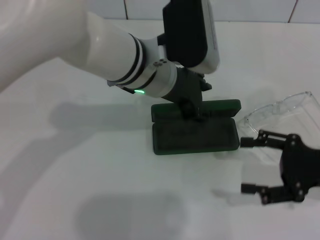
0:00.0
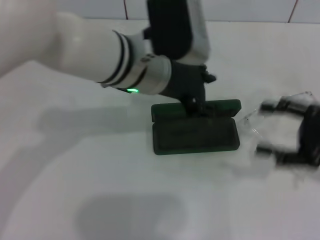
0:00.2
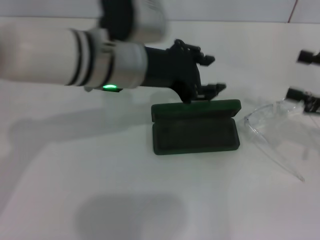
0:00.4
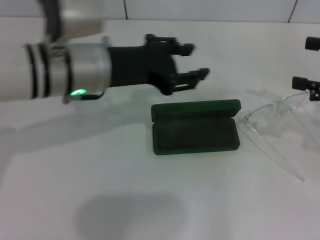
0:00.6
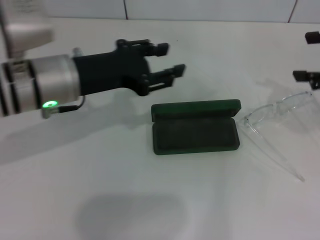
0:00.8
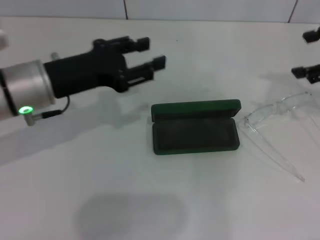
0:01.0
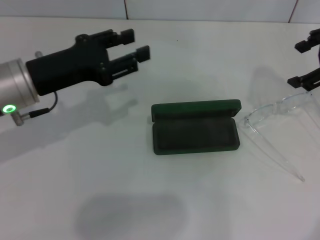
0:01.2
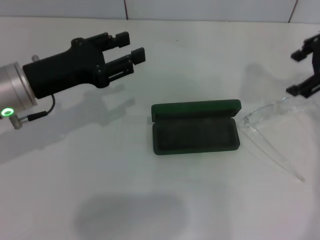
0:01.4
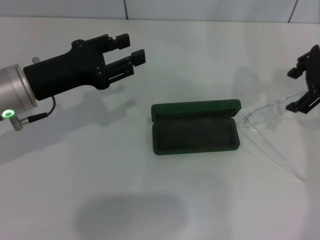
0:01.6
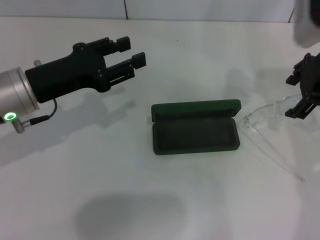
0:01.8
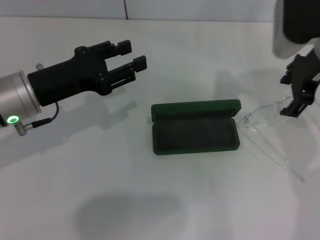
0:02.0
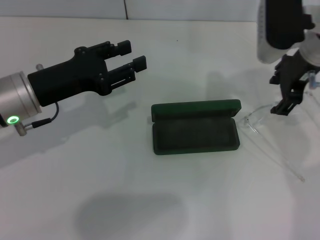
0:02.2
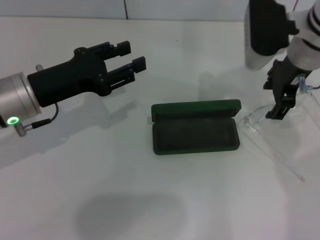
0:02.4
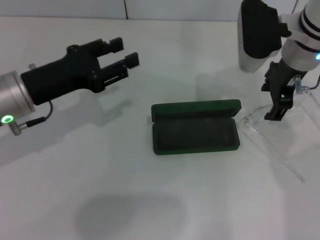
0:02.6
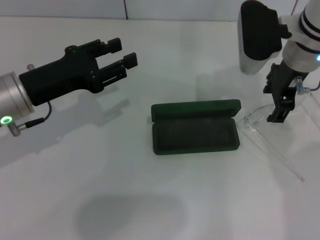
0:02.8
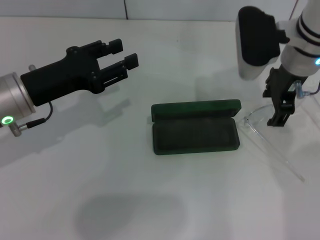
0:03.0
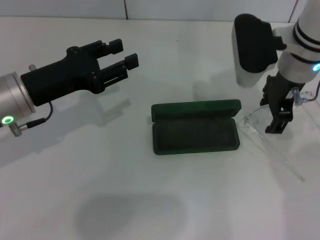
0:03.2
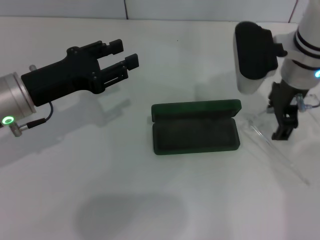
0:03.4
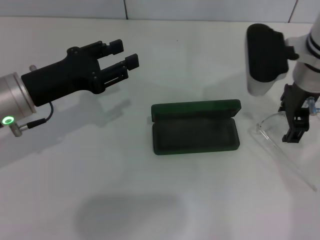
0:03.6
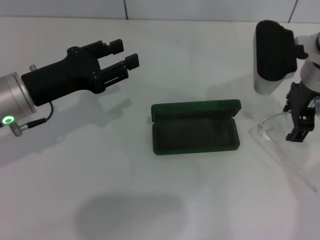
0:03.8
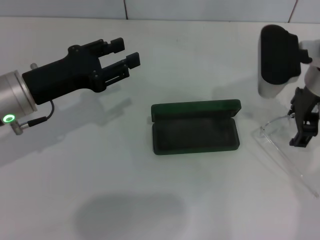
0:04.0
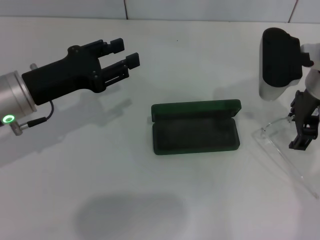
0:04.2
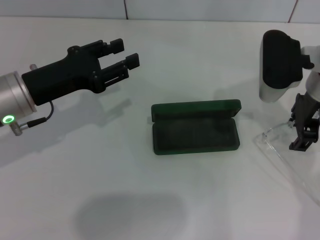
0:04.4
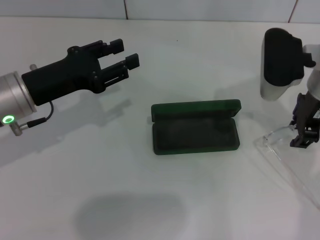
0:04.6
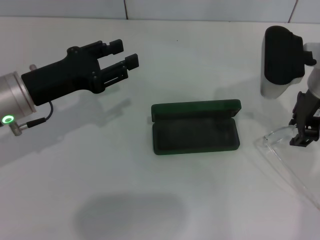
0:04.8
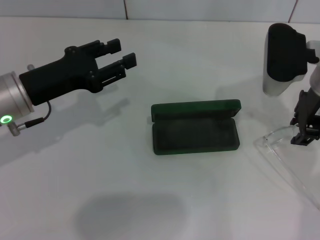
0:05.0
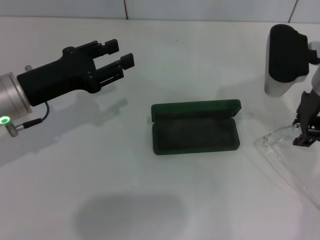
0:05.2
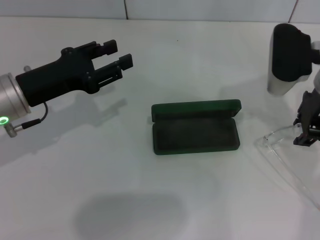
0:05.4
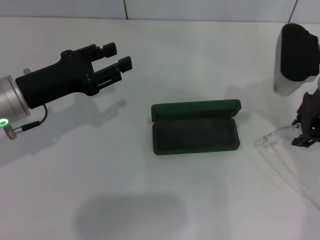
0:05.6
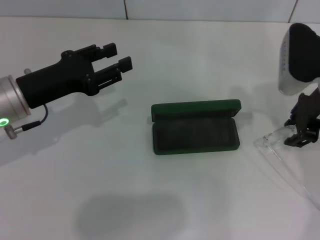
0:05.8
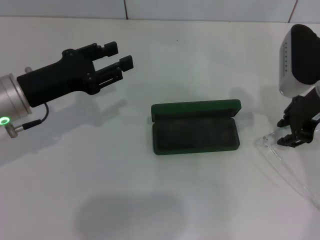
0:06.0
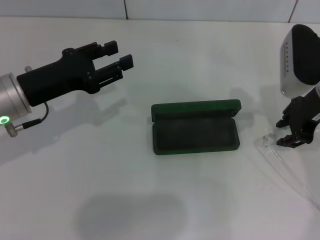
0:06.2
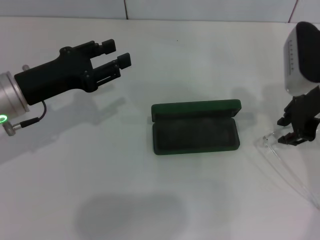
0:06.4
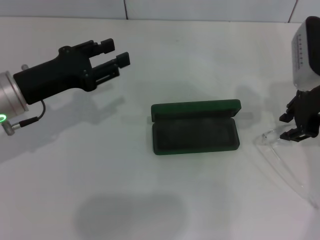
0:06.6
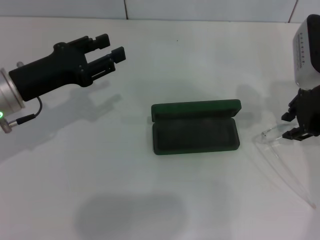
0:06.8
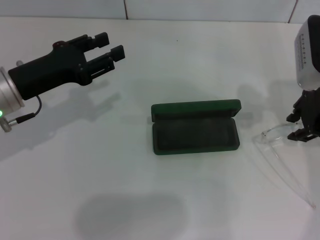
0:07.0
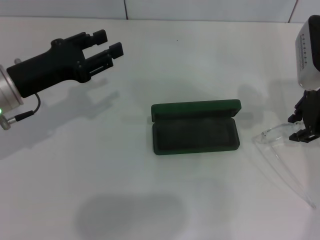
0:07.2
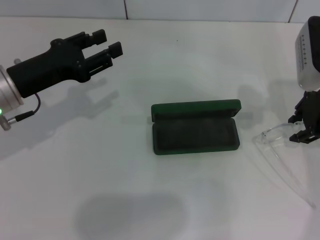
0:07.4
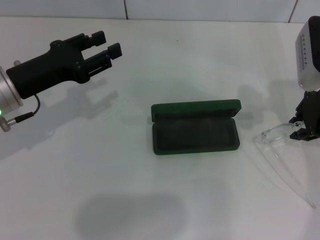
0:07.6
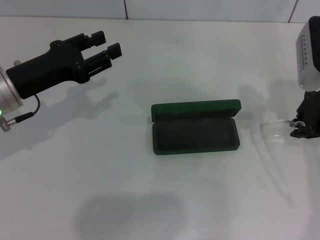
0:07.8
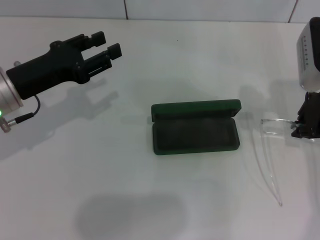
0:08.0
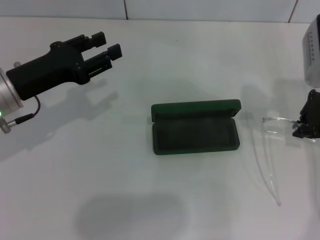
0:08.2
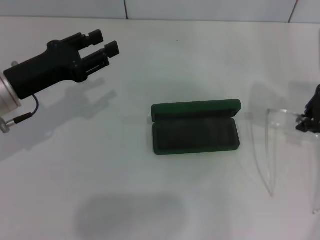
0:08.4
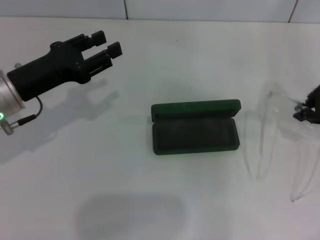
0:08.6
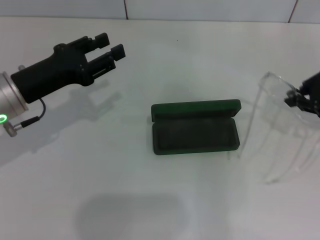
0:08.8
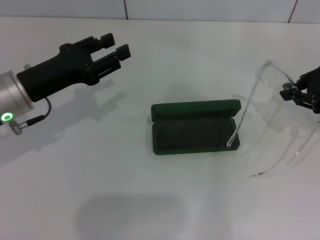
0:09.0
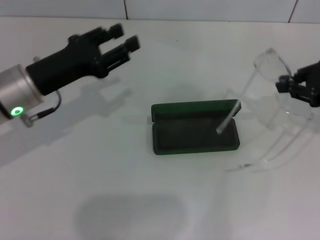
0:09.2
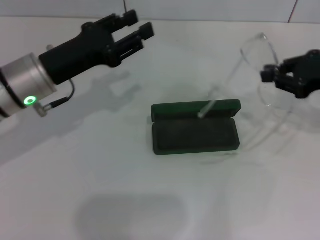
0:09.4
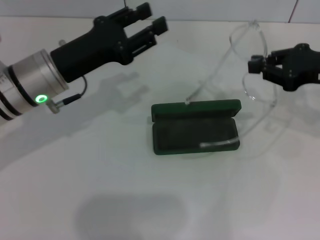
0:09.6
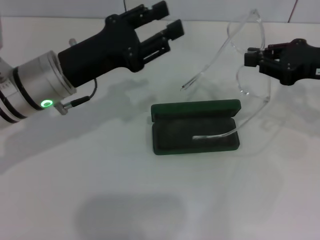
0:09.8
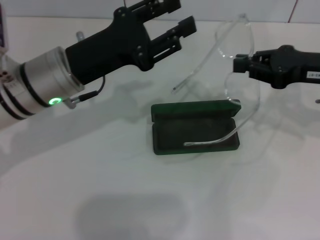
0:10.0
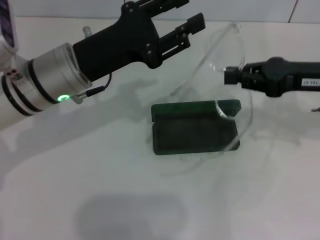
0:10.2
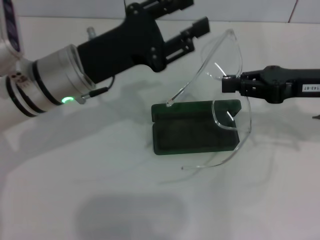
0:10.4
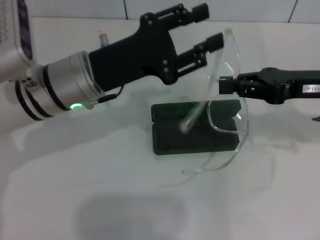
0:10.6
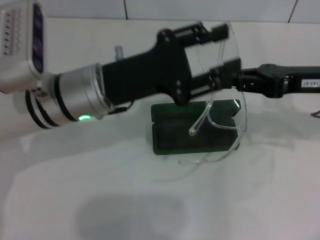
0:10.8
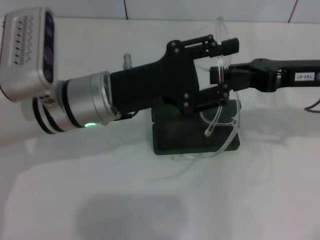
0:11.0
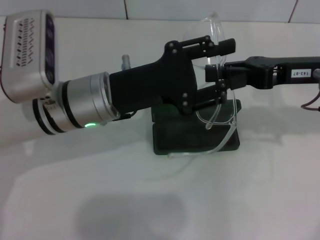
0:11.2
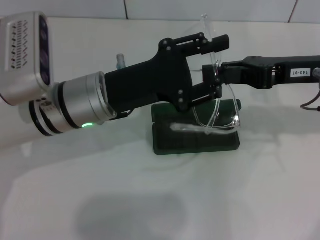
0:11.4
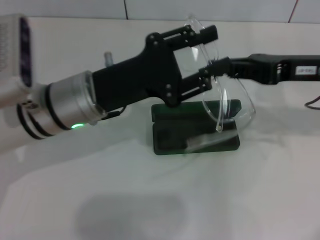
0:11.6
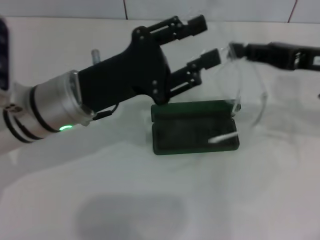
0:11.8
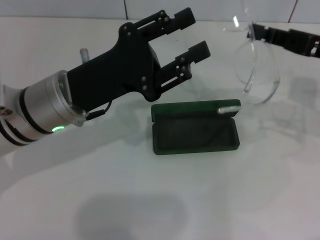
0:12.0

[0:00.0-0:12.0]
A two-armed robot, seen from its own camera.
Step, 0:00.2 to 0:08.0: Grab the eyeglass frame with your right hand.
0:00.0 to 0:01.6: The right gripper travels upward and forward by roughly 20 cm, while the left gripper moves to the left, some 20 cm.
0:01.6 to 0:03.0: The right gripper is displaced to the left and downward by roughly 10 cm.
0:03.0 to 0:04.4: The grippers make only small movements.
0:04.4 to 0:07.6: The grippers stay close to where they were, moving slightly.
0:07.6 to 0:09.0: The right gripper shifts about 5 cm to the right.
0:09.0 to 0:10.4: The left gripper goes approximately 10 cm to the right.

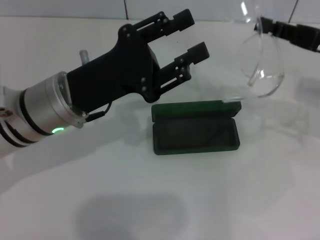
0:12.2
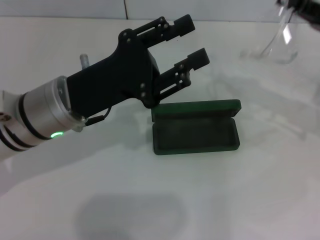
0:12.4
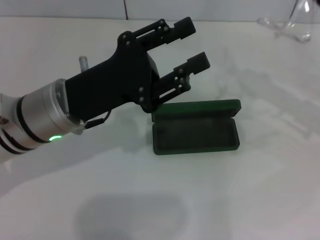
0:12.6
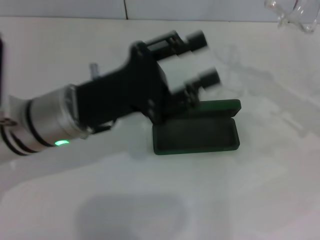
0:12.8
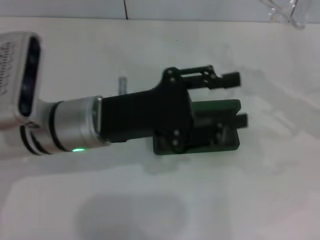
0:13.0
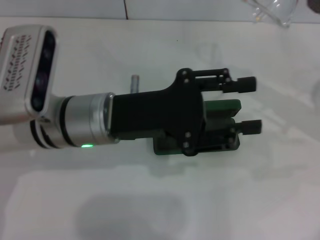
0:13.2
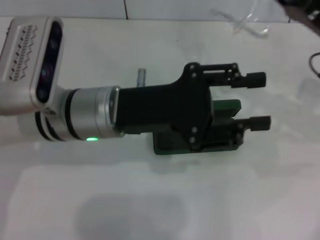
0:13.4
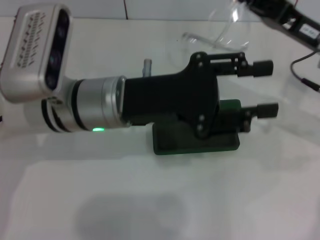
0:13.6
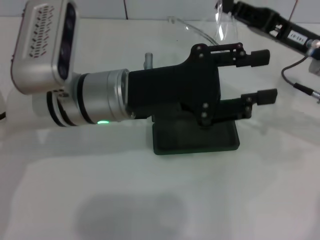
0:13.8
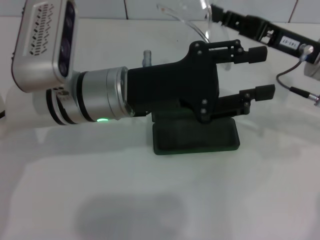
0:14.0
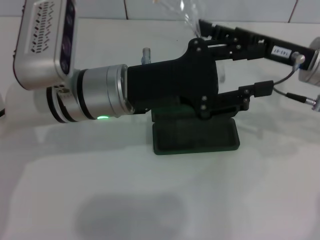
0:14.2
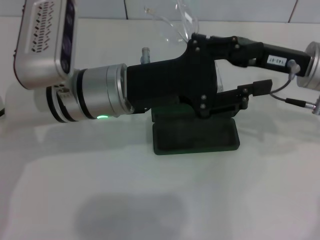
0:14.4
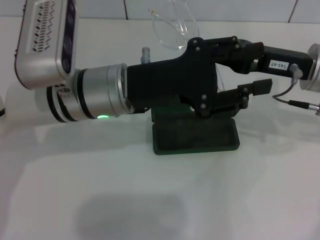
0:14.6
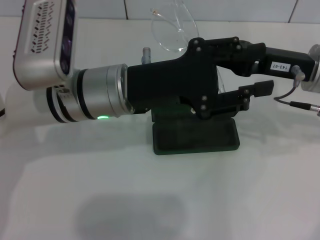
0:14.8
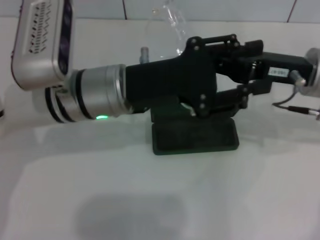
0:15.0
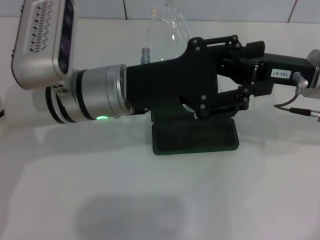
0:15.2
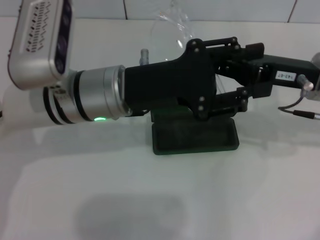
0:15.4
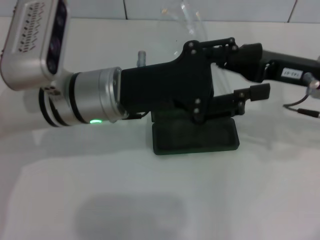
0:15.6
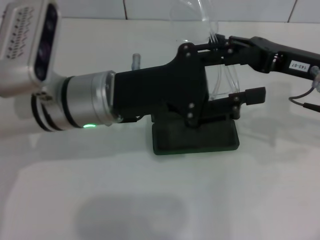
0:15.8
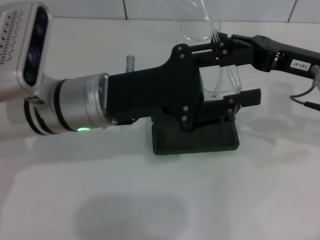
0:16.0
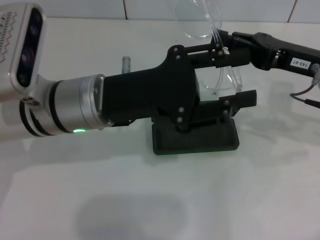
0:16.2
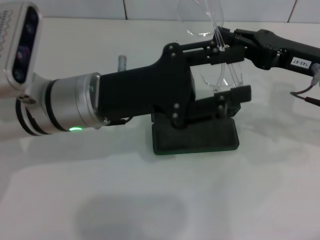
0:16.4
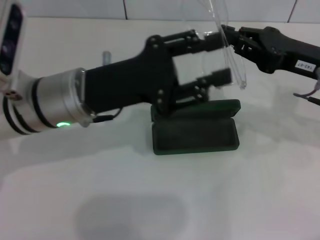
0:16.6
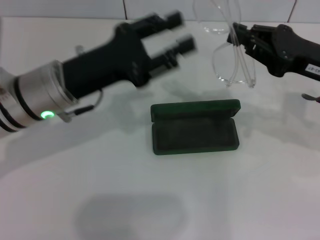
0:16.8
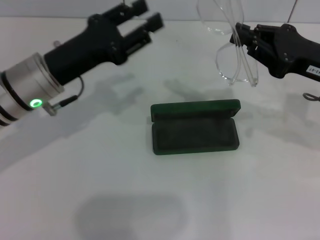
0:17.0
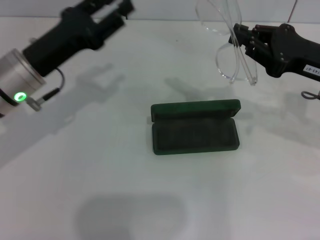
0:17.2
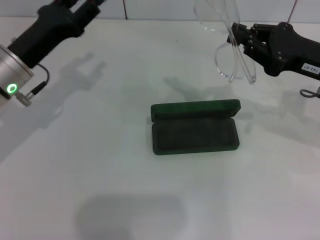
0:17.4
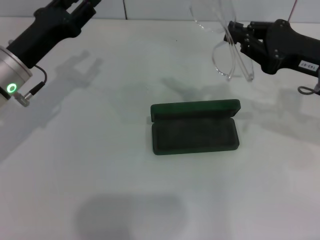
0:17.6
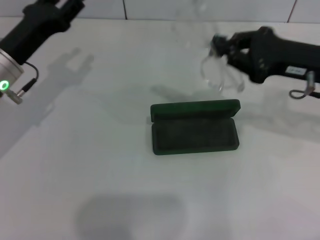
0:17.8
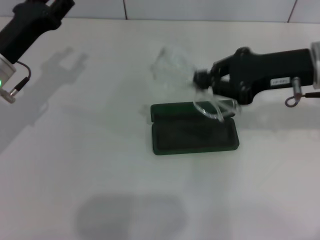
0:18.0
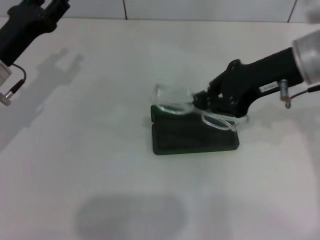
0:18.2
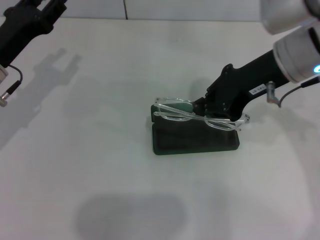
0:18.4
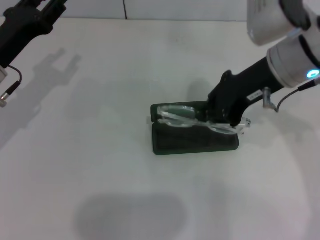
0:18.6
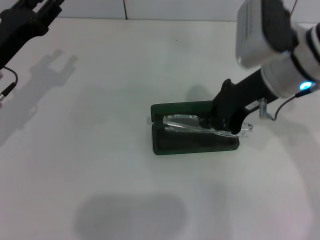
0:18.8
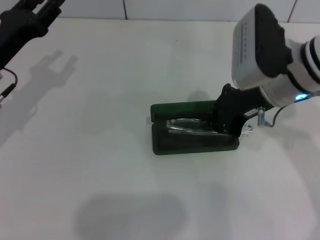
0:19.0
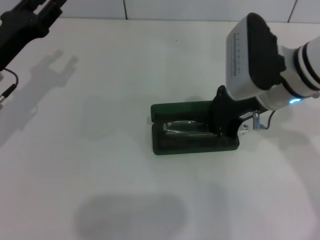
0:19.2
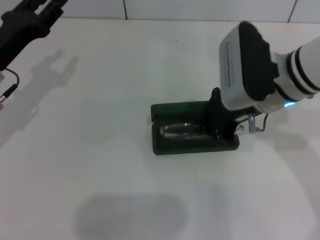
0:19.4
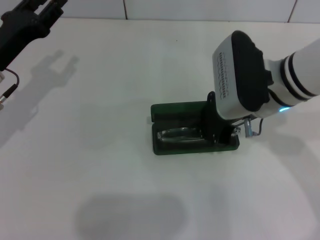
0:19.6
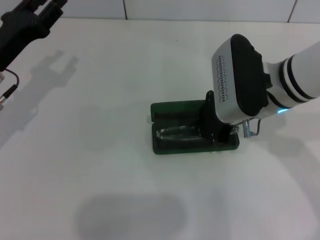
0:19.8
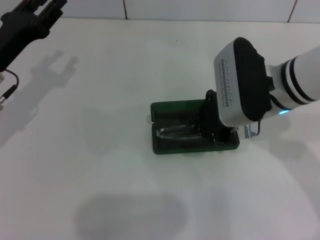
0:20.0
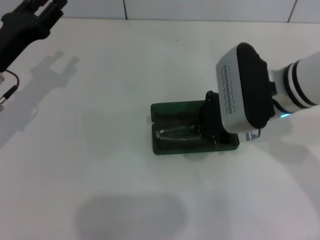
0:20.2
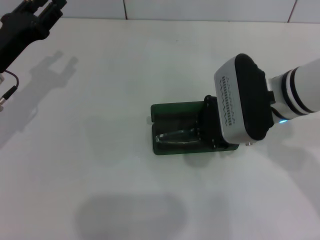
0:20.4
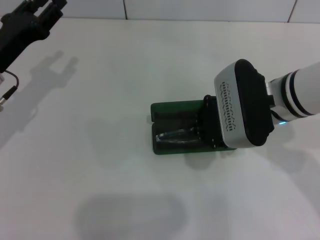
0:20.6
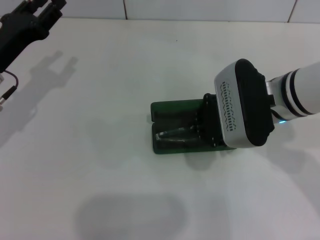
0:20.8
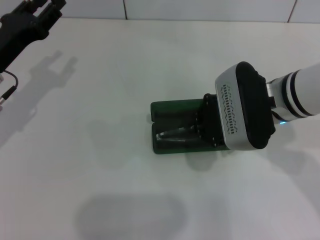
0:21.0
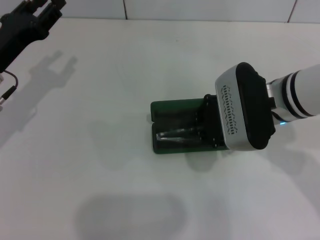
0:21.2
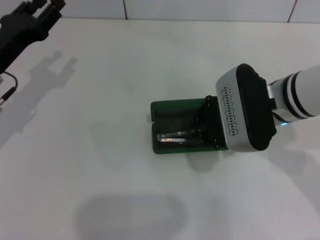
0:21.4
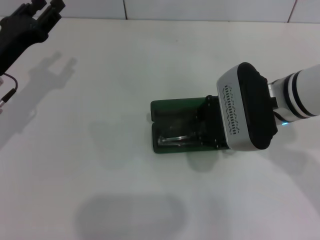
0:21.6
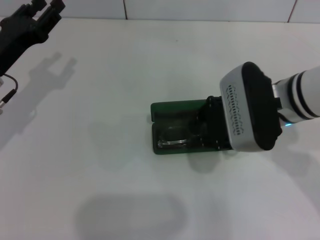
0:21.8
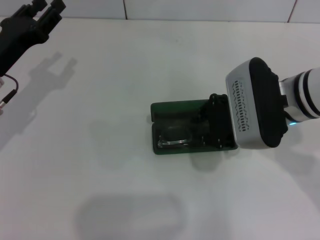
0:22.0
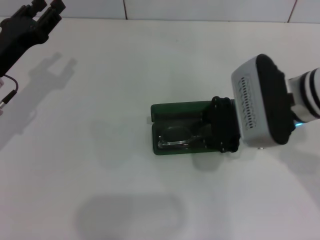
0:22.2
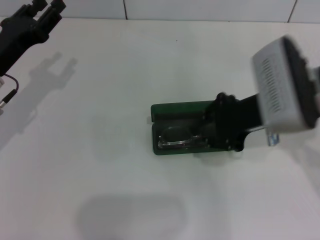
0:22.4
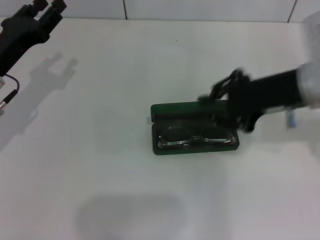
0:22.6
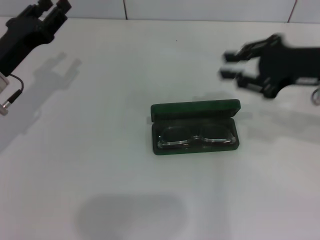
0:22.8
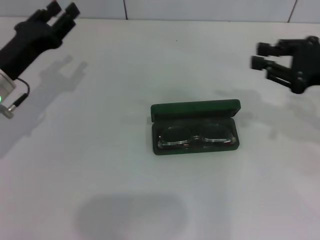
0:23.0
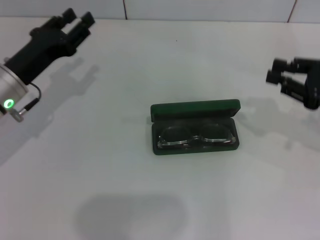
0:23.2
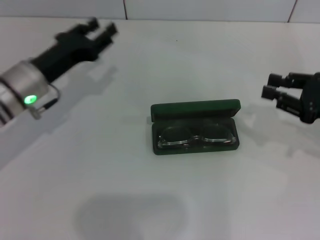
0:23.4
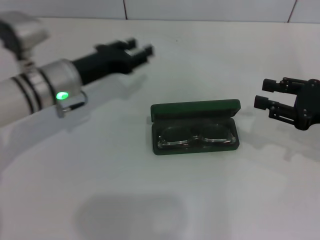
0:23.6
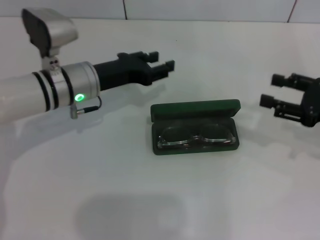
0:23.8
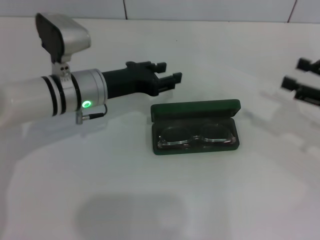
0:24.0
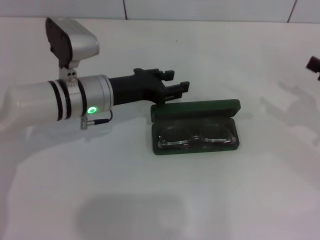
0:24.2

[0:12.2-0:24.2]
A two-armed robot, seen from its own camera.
Step, 0:12.2 to 0:15.6: Fold the frame with your left hand.
Step, 0:15.8 to 0:22.0: Put the glasses into the case with your right hand.
0:12.2 to 0:13.8: The right gripper heads to the left, covering about 5 cm; the left gripper goes about 5 cm to the right.
0:16.6 to 0:18.2: The left gripper travels to the left by roughly 10 cm. Meanwhile the right gripper heads upward and to the left, covering roughly 10 cm.
0:18.2 to 0:19.8: The right gripper travels downward and to the left by some 10 cm.
0:19.8 to 0:21.2: There are only small adjustments of the grippers.
0:21.2 to 0:22.6: The right gripper moves to the right and upward, approximately 10 cm.
0:22.6 to 0:24.2: The right gripper shifts about 20 cm to the right and downward, and opens its fingers; the left gripper is displaced to the right by about 15 cm.
